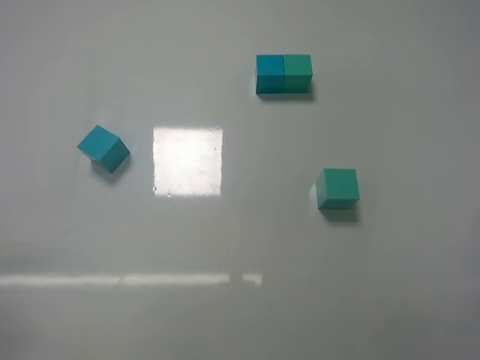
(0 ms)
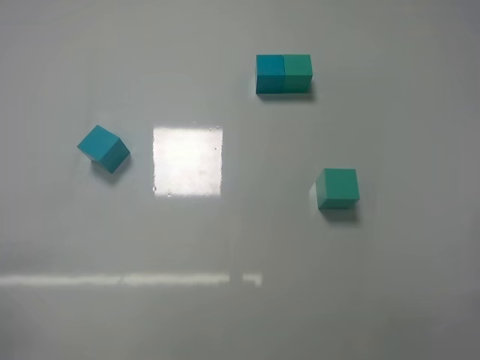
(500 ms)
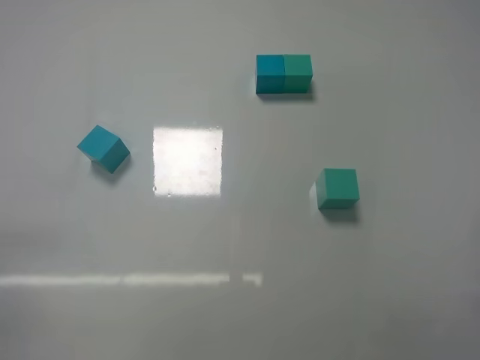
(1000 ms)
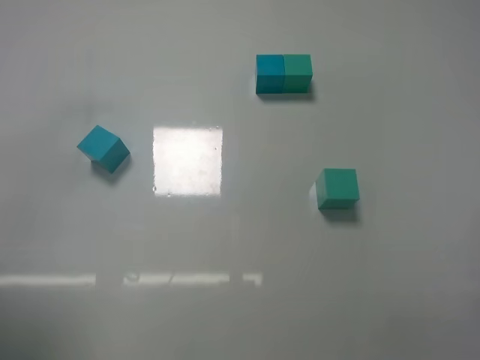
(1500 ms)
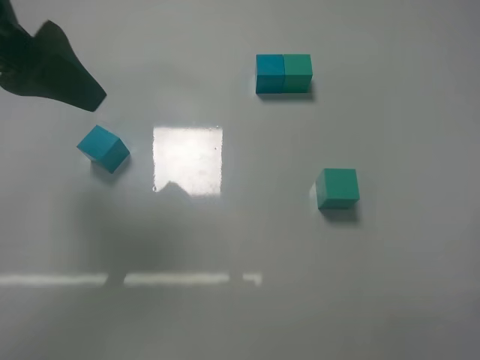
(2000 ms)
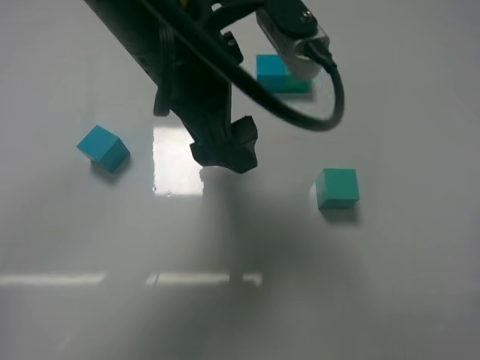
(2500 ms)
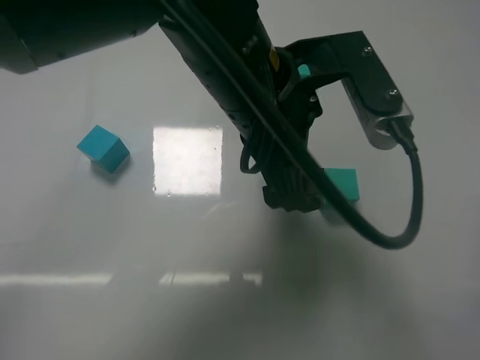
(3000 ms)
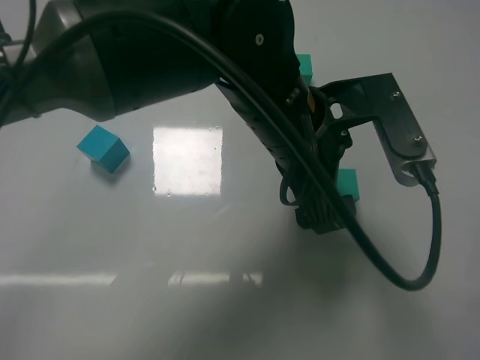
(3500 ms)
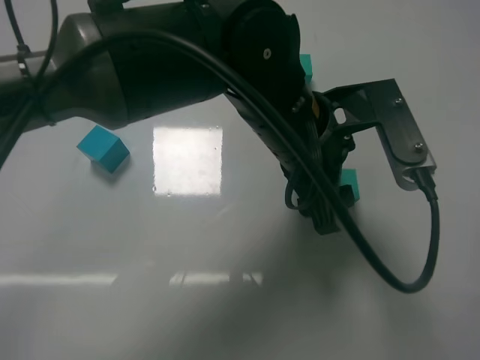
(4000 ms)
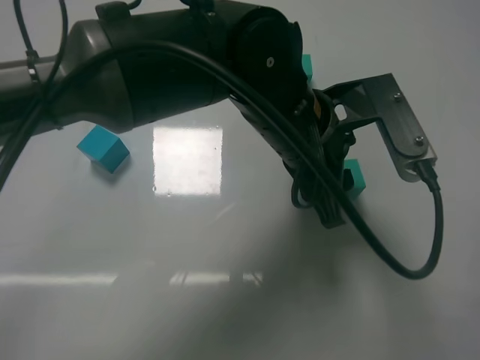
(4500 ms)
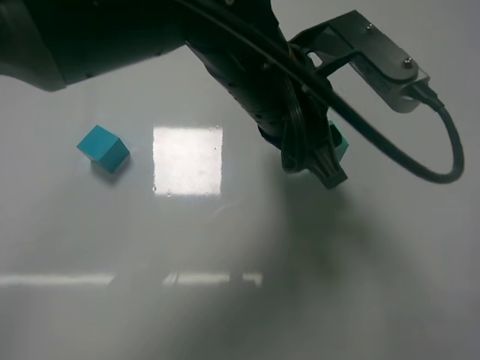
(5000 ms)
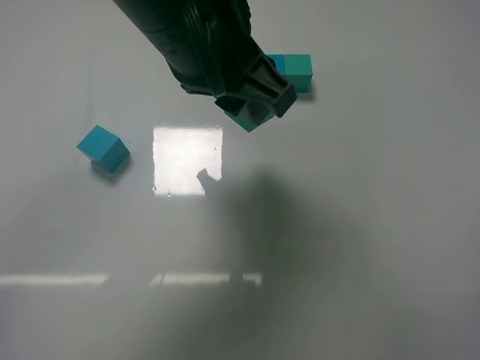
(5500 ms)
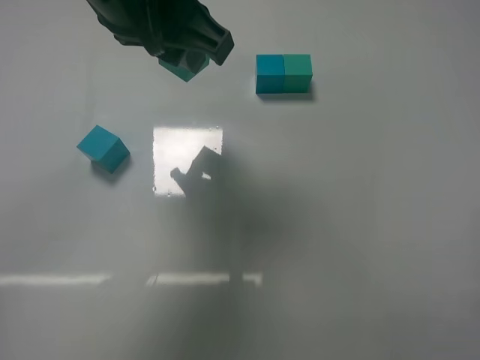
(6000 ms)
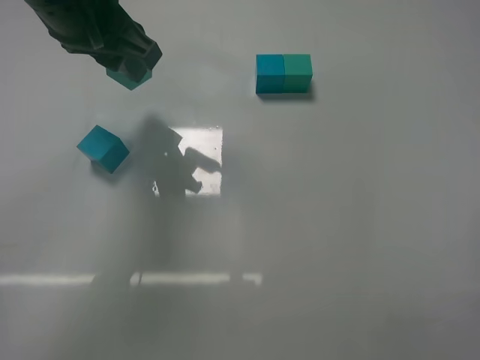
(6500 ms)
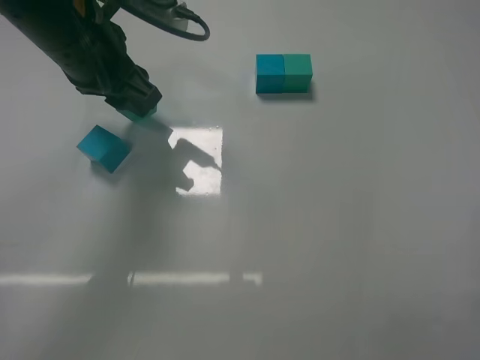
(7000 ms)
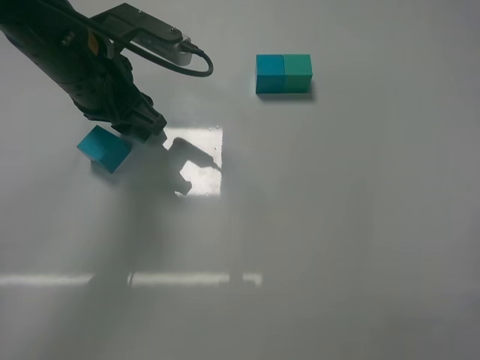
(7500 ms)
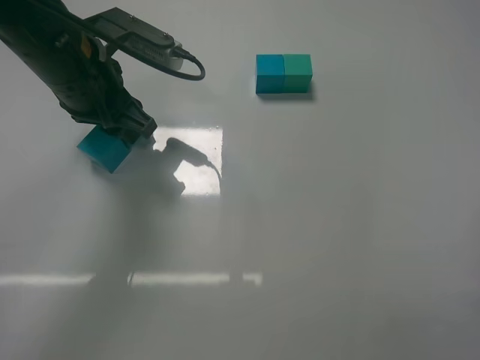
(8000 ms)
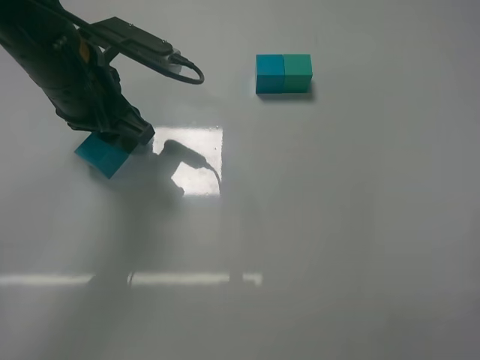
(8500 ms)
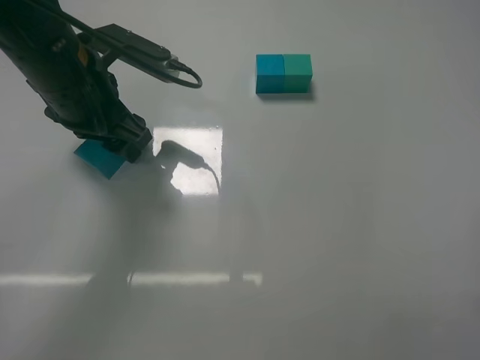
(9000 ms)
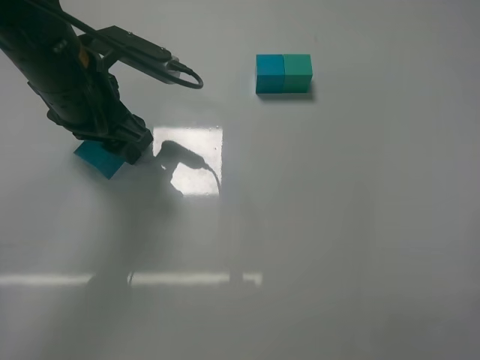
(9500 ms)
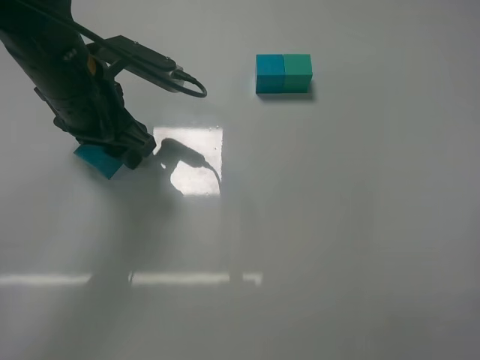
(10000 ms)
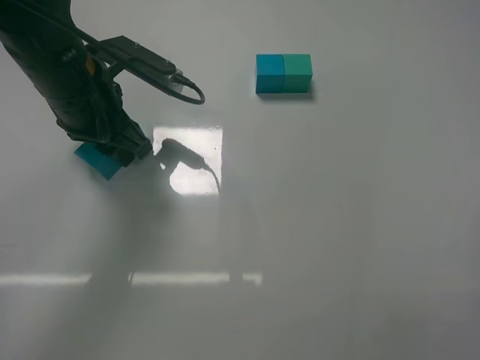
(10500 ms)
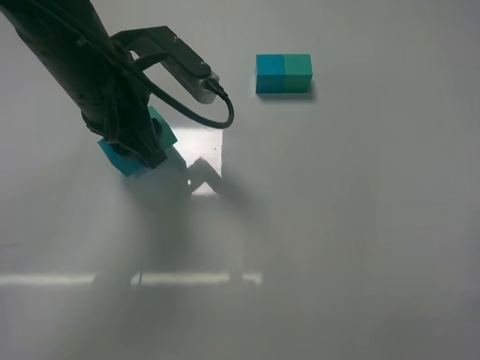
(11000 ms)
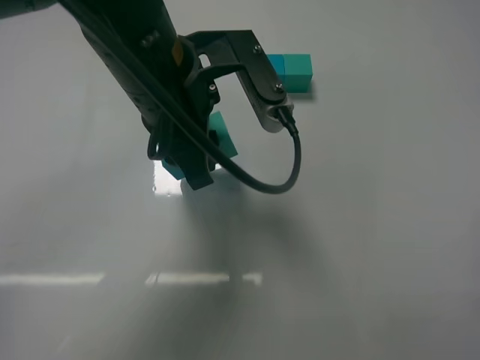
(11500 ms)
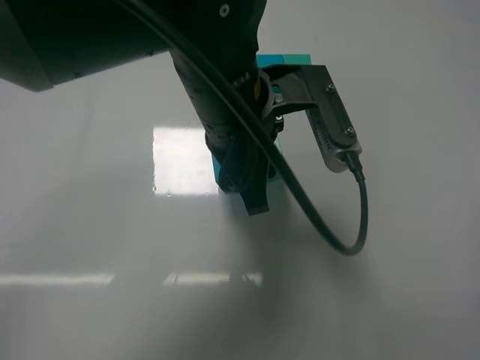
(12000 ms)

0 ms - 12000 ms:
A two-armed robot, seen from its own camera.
Task of the whole recording: According to the building block template in front, assemble the scattered blocks together.
Step, 0 ms - 4000 ms: Grasp the green block with left gripper.
Step, 4500 ms - 9000 ms: Put the green cube on the front of the blue cube with the left gripper.
0 ms - 2000 ms: The left gripper moves forward, upward and to the right, approximately 35 cm.
2000 ms - 4000 ms: The left gripper moves to the right and downward, about 30 cm, and closes up.
4000 ms - 6000 ms: The left gripper moves to the left and upward, approximately 20 cm, and closes.
6000 ms - 8000 ms: The left gripper shifts approximately 15 cm downward, to the left and forward.
8000 ms - 10000 ms: There are only small adjustments of the grippers.
10000 ms - 12000 ms: The left gripper is displaced to the right by roughly 15 cm.

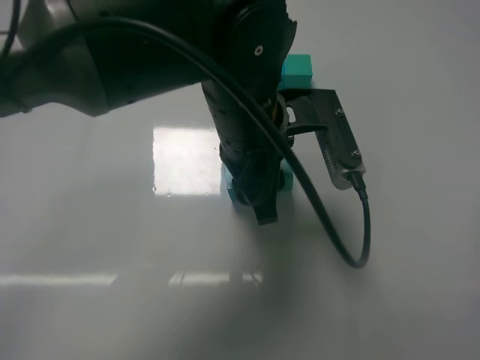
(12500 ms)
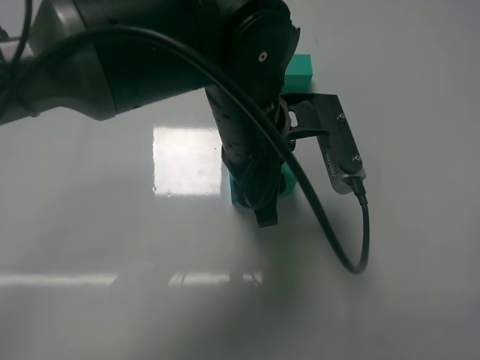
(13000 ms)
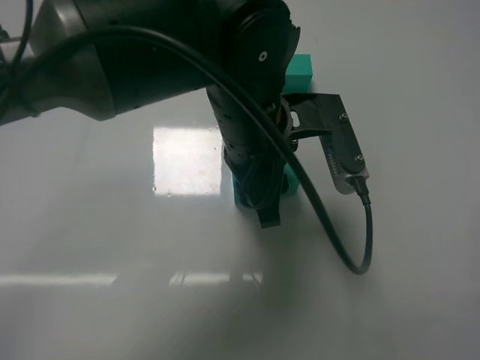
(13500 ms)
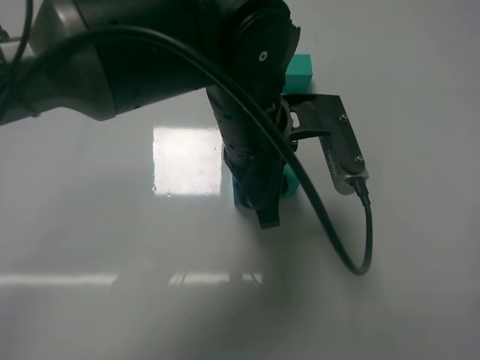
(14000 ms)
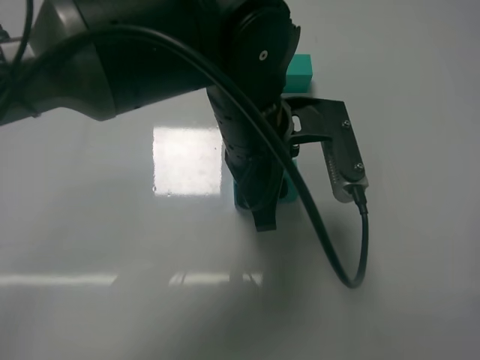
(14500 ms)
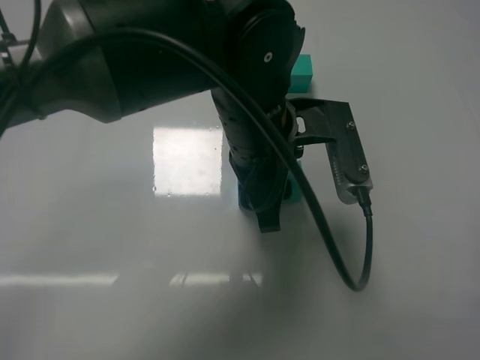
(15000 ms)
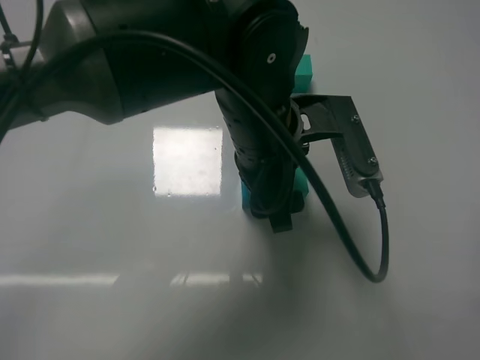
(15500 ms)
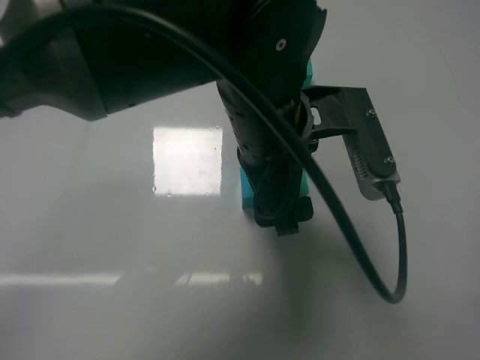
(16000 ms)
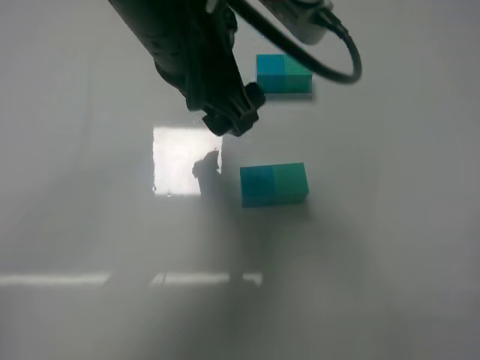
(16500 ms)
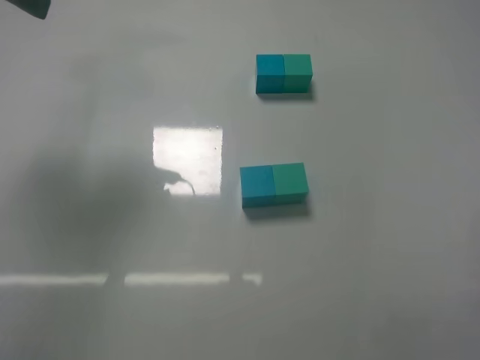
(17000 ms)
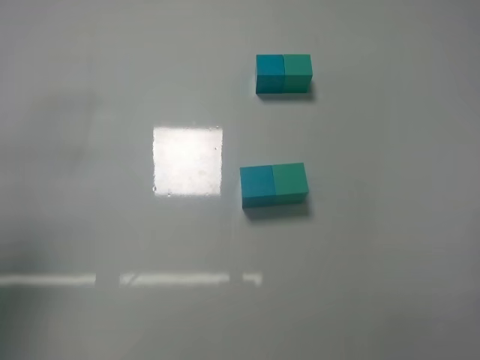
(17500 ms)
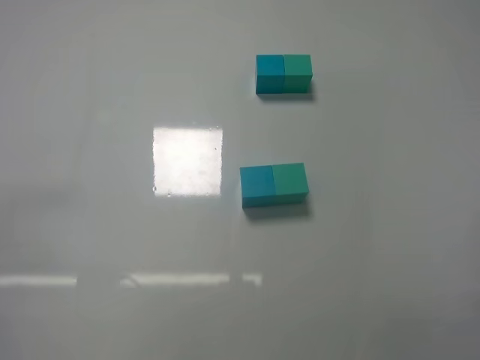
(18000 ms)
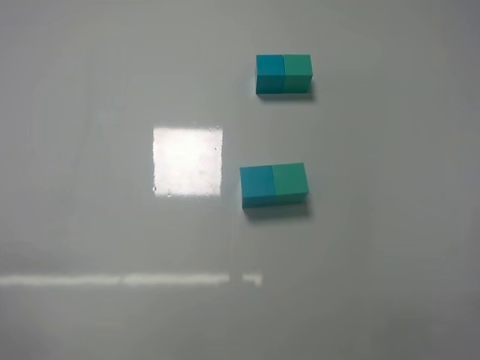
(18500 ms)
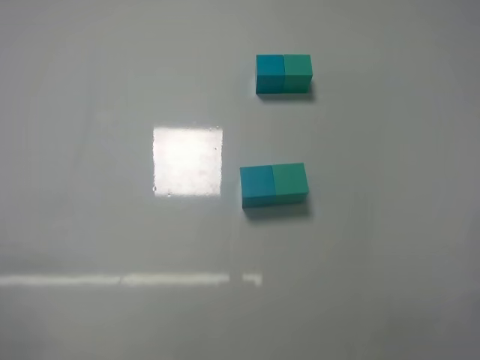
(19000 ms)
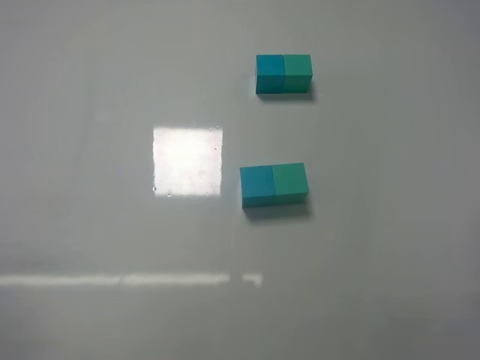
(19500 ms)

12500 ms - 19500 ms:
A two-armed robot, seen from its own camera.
Task of the whole recording: According to the building block template in front, assemble the scattered blocks together.
Step, 12500 ms - 16000 ms: Put the blue cube and green cube in the center of the table with the left gripper.
12500 ms - 14500 ms: The grippers move only a little.
14500 ms - 16000 ms: The left gripper opens its fingers.
16000 ms - 17500 ms: The left gripper heads to the left, covering roughly 35 cm.
17500 ms - 19500 ms: The left gripper goes roughly 20 cm downward and backward.

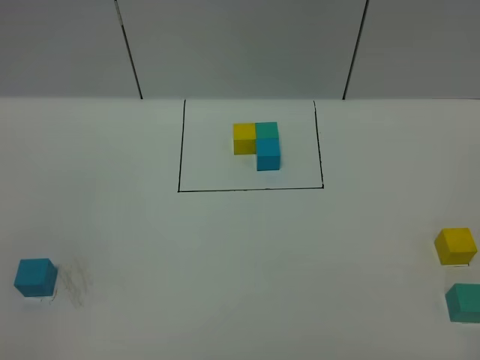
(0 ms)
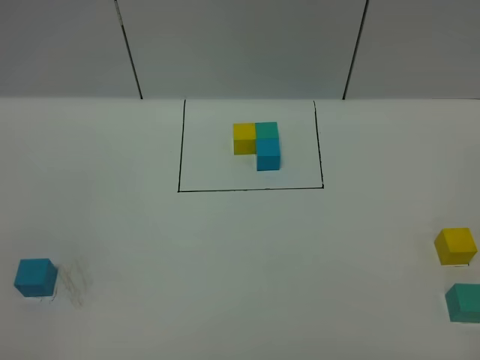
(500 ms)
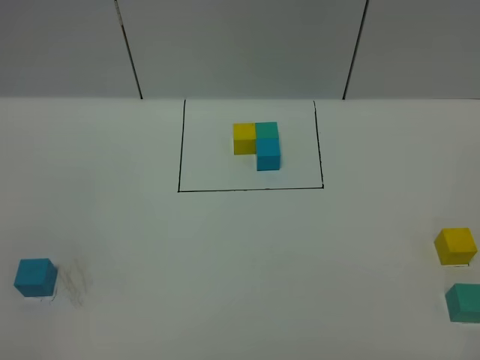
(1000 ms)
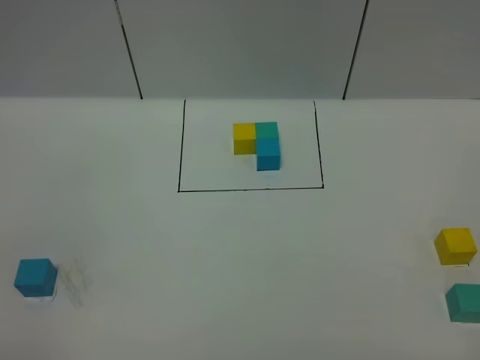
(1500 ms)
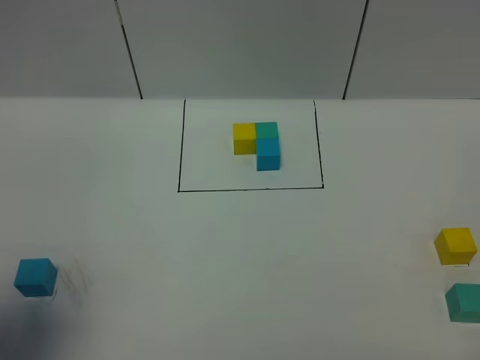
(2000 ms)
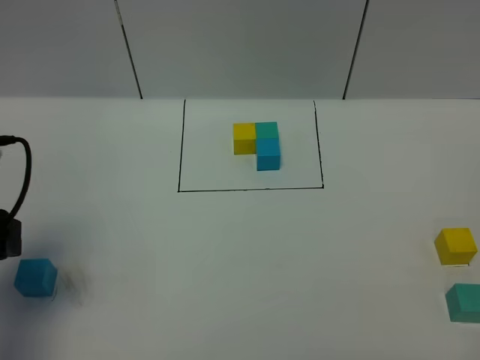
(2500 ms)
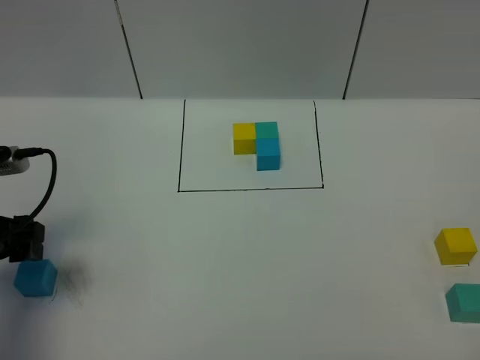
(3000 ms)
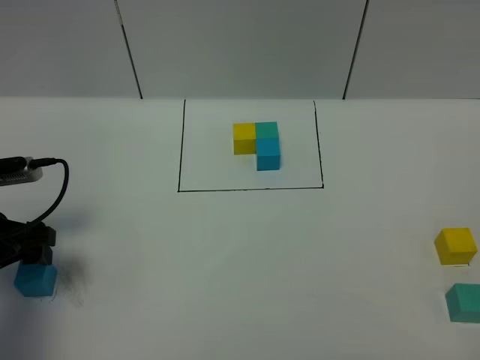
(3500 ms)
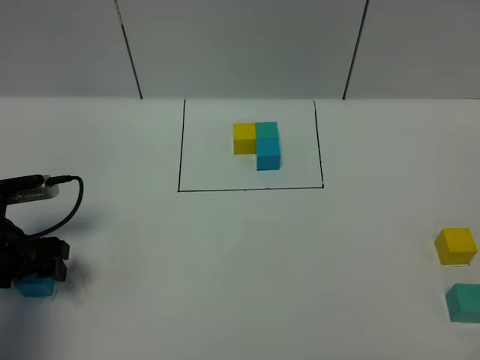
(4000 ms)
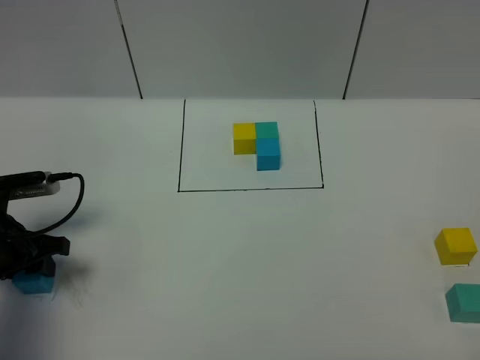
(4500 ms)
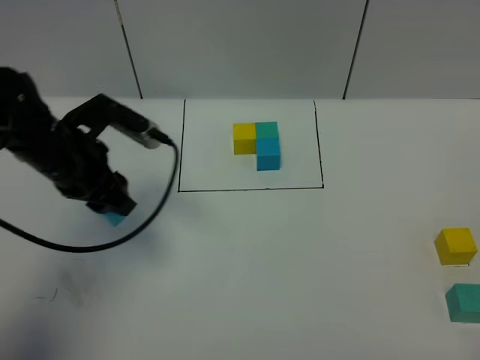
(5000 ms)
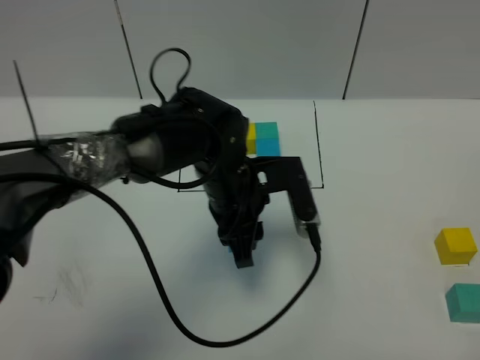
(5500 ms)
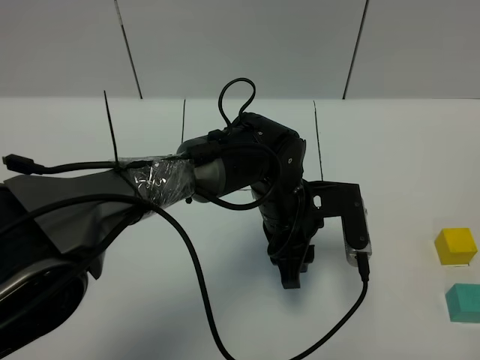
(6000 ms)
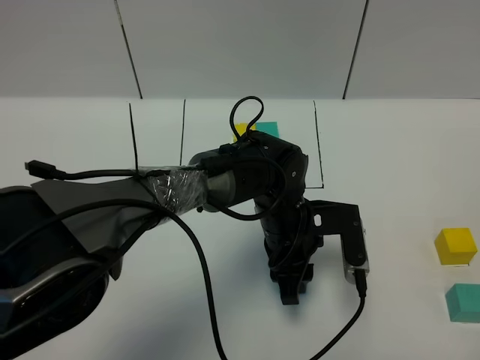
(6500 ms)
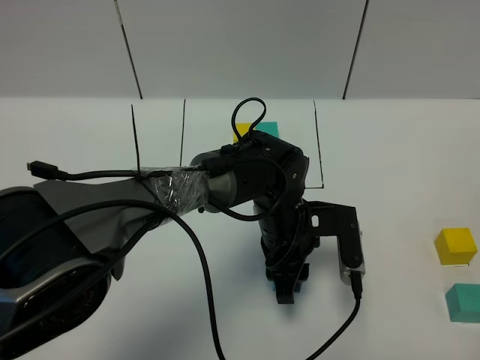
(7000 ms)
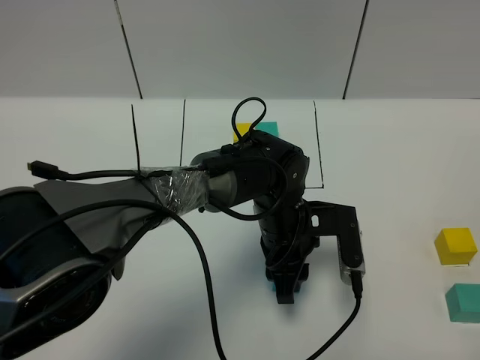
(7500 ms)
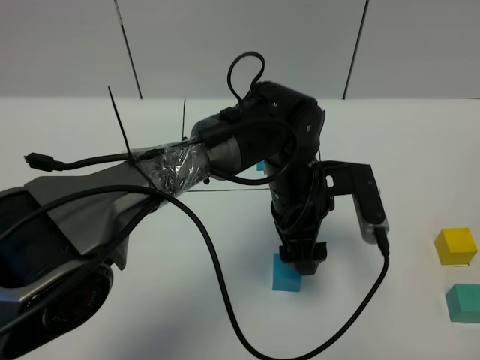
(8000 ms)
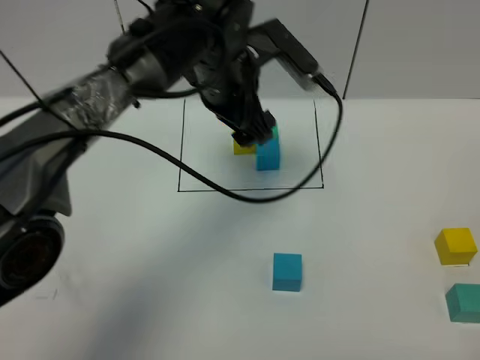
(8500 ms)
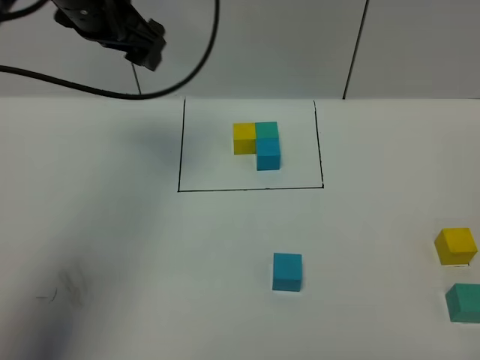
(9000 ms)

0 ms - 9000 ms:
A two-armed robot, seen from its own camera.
Task of the whole recording: According to the building block template in front, assemble the scattered blocks together.
Step, 2000 ms - 7500 ms: Put the blue cube in the center of the table.
0 ms - 2000 ms: The left gripper heads forward, covering some 15 cm.
2000 ms - 4500 ms: The left gripper is displaced downward and forward by roughly 25 cm, and closes up.
4500 ms - 7000 ms: The left gripper moves to the right, roughly 35 cm.
7000 ms - 9000 ms: The left gripper shifts roughly 35 cm upward, to the left and forward, and opens its fingers.
